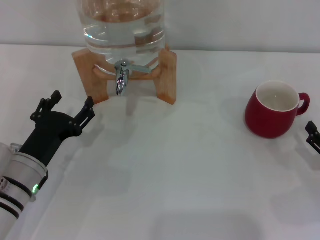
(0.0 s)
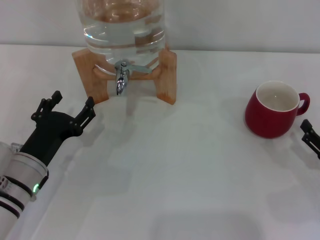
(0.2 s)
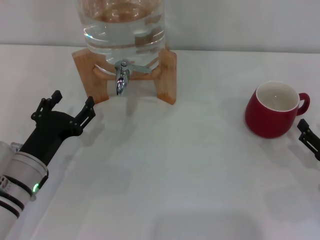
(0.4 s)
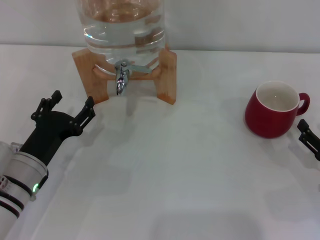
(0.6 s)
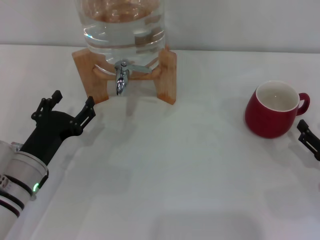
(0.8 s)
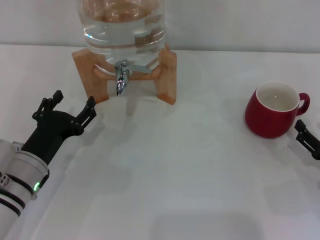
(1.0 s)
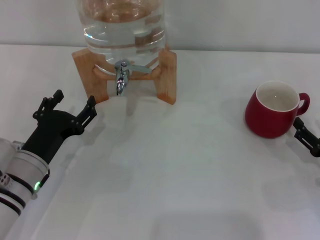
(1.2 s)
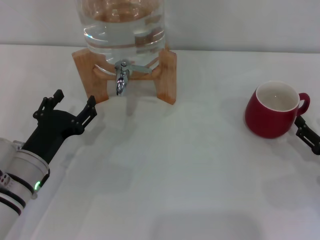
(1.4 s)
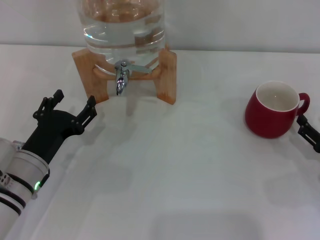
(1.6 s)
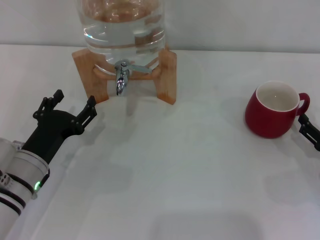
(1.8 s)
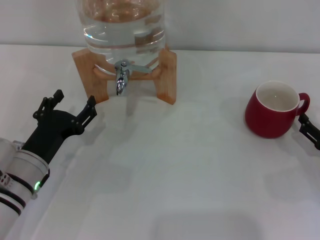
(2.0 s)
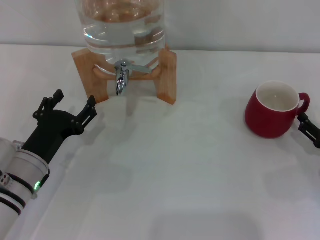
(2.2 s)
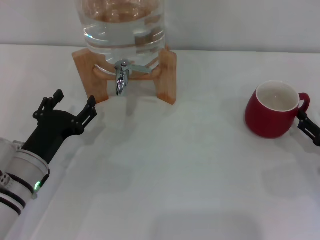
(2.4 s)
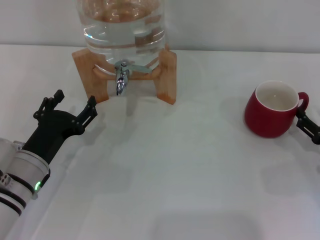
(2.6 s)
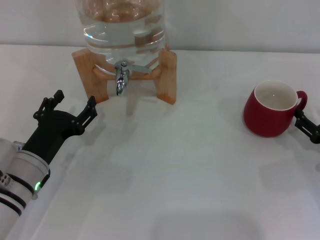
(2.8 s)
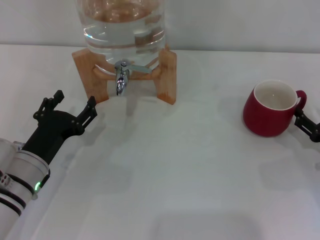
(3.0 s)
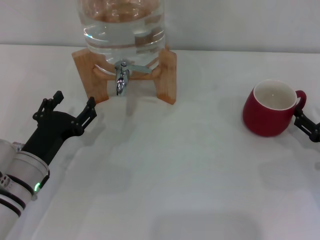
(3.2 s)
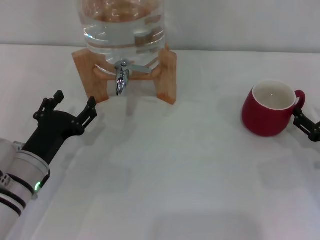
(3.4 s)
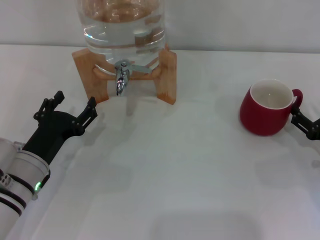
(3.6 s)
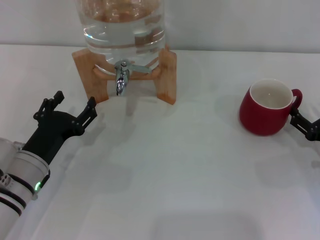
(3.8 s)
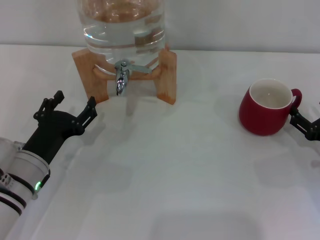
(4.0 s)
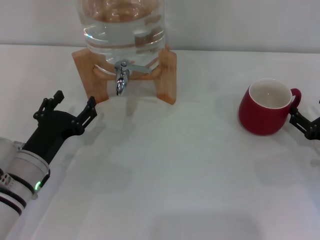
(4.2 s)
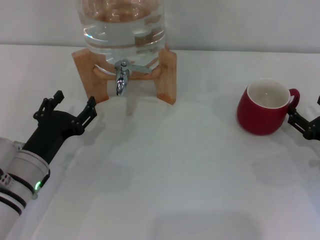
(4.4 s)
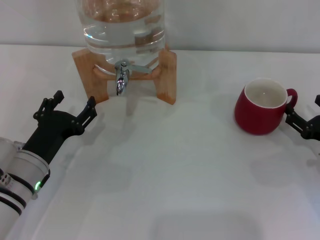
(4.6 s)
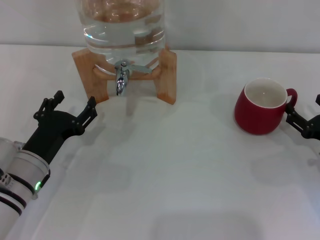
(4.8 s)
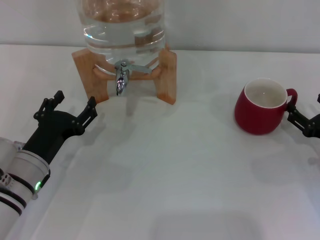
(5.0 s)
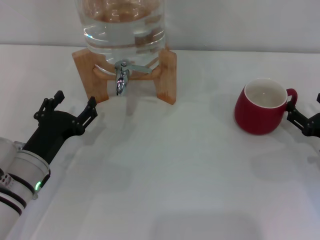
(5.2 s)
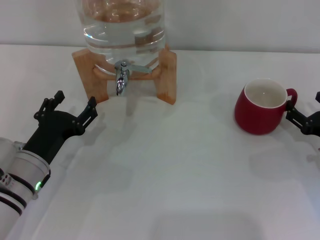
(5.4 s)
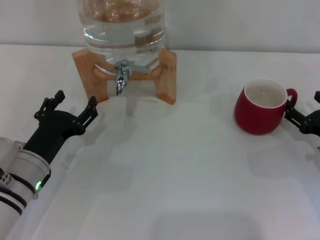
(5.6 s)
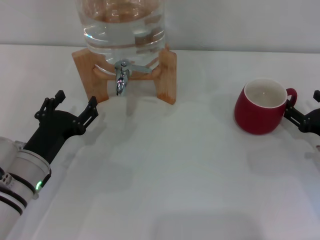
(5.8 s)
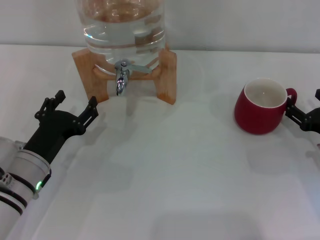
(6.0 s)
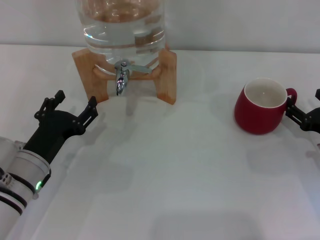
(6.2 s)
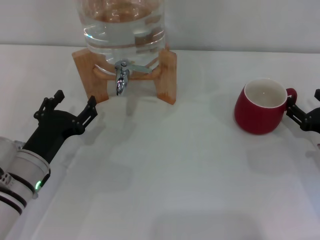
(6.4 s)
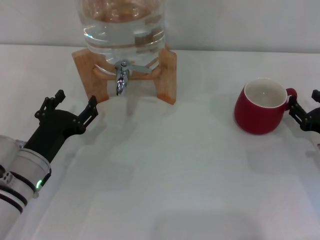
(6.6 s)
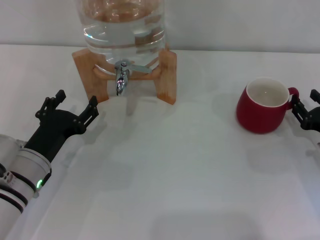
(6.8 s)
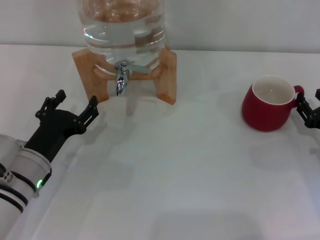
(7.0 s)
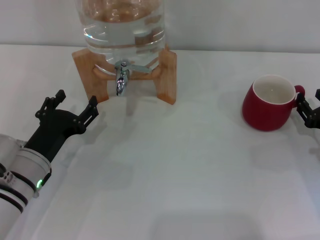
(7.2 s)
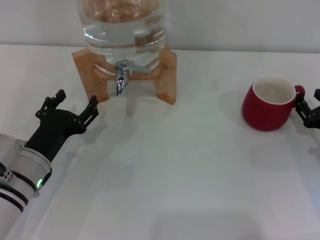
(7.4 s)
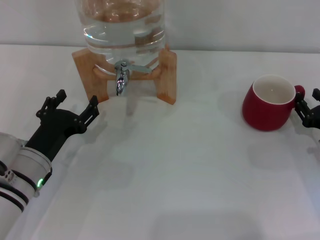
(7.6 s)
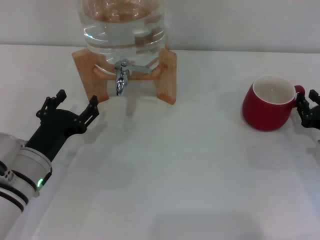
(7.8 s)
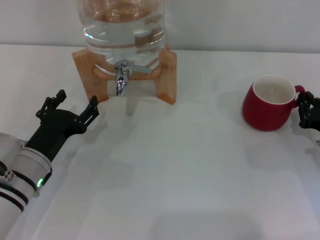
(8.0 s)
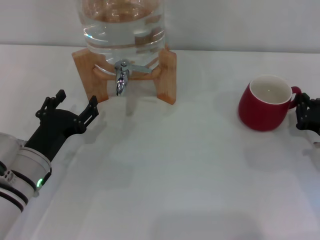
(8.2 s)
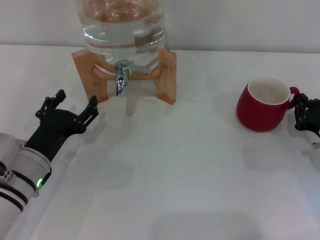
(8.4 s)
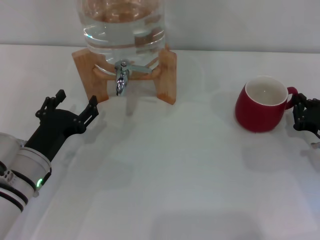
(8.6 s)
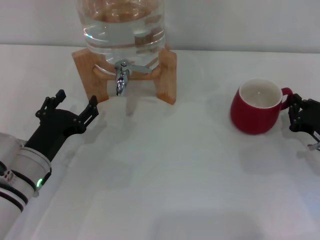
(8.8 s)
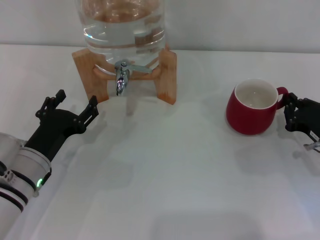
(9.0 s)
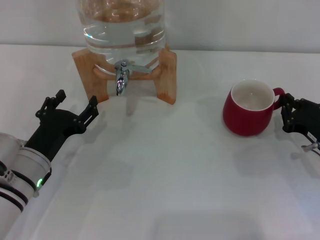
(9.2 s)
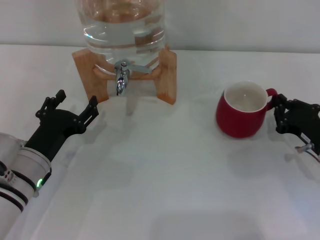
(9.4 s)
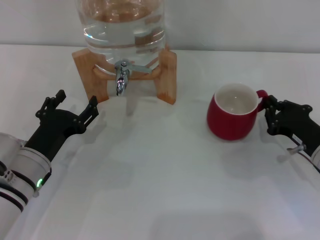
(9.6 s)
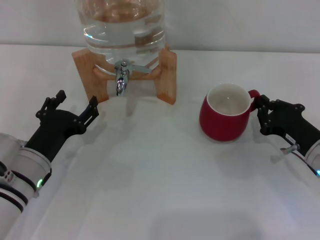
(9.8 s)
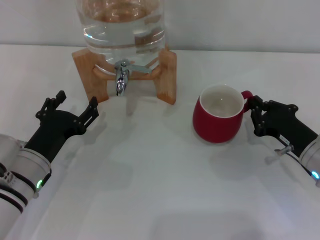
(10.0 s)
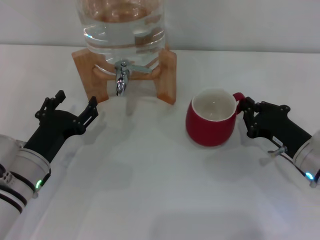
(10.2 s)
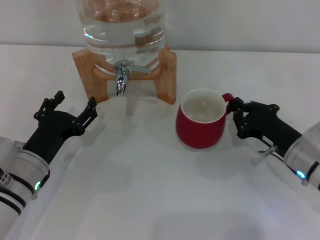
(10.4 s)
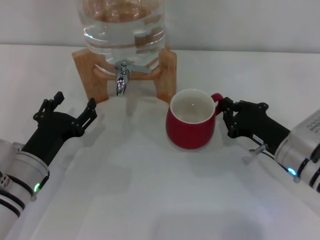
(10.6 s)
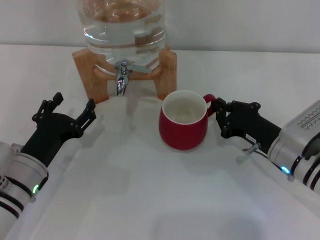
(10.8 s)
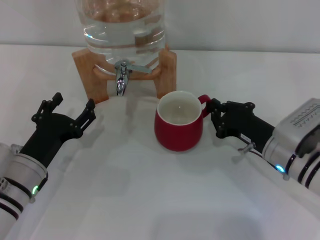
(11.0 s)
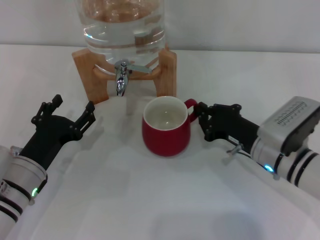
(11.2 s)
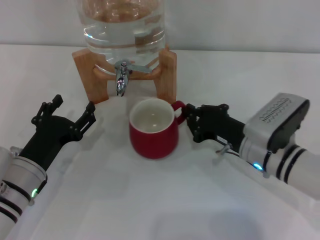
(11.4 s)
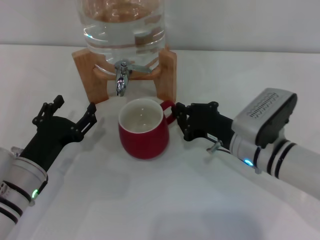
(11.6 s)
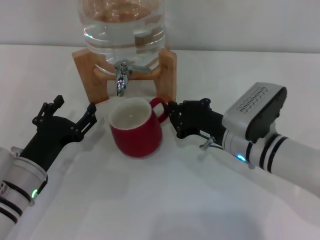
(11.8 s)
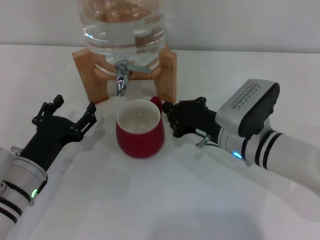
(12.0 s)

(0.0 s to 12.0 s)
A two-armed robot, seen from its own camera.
Task of the whole recording: the right gripper pick up the red cup and place it horizontally under the faucet, the left gripper turn on the faucet to fill the cup, and then turn off the faucet.
0.0 s - 3.0 s: There are only small adjustments of the grippers.
3.0 s - 4.4 s: Both grippers stay put.
4.4 s - 6.0 s: There are only small adjustments of the grippers.
6.0 s - 7.6 s: The right gripper closes up.
7.6 s - 9.0 s: The right gripper closes its fingers.
9.0 s - 10.4 s: The right gripper travels to the left by approximately 5 cm.
10.4 s - 12.0 s: The right gripper moves to the left, approximately 10 cm.

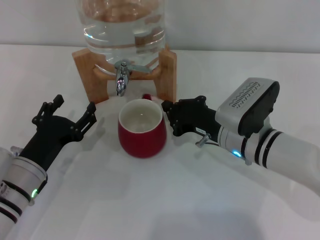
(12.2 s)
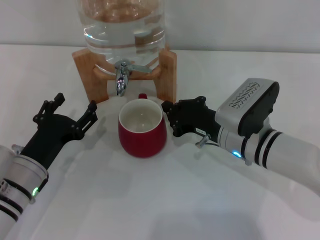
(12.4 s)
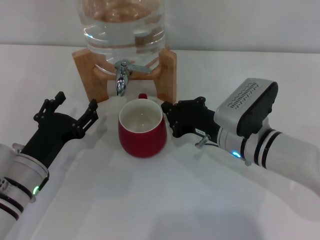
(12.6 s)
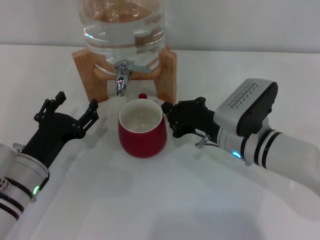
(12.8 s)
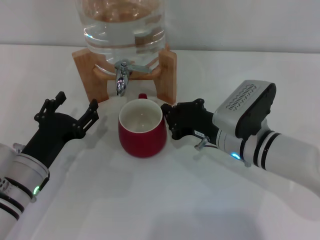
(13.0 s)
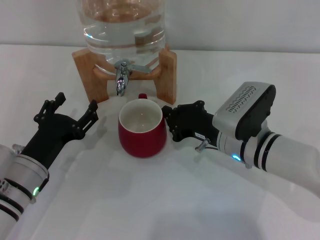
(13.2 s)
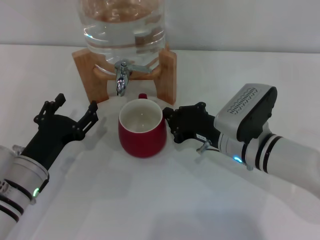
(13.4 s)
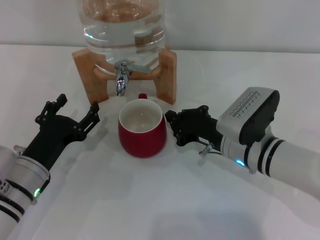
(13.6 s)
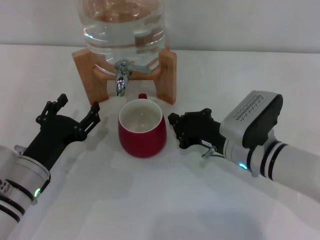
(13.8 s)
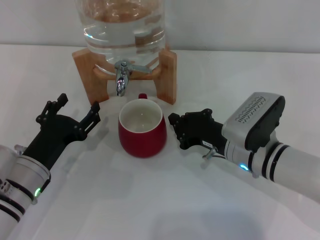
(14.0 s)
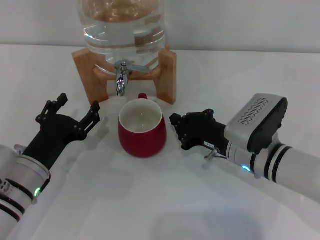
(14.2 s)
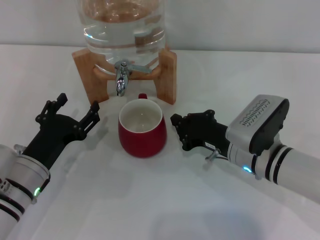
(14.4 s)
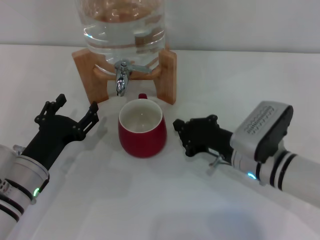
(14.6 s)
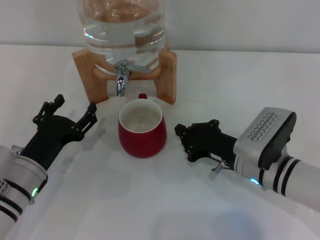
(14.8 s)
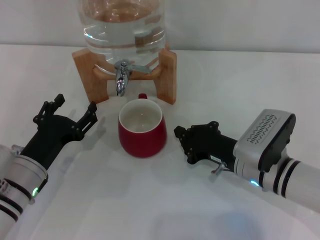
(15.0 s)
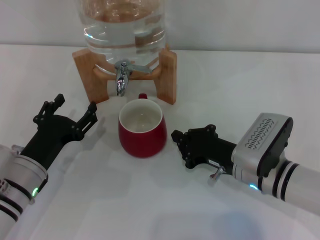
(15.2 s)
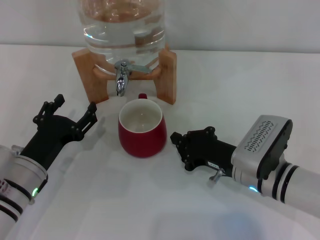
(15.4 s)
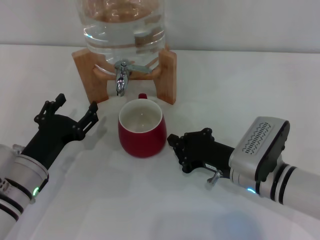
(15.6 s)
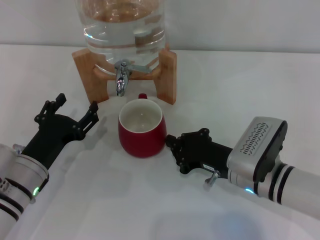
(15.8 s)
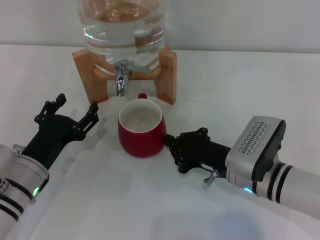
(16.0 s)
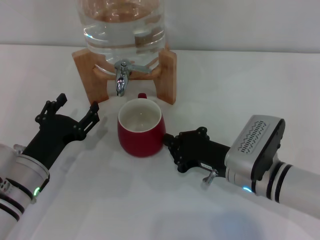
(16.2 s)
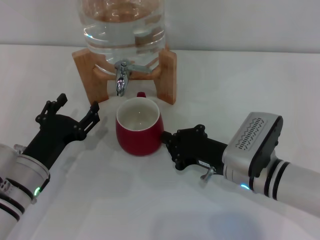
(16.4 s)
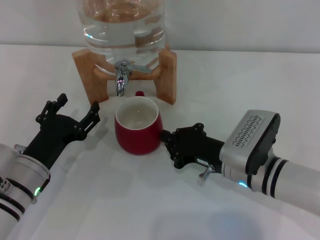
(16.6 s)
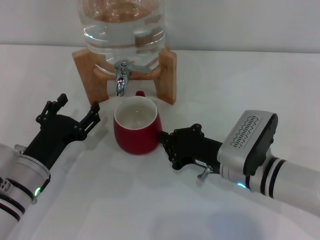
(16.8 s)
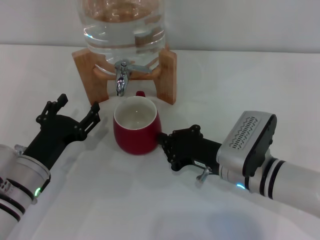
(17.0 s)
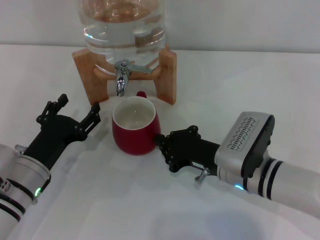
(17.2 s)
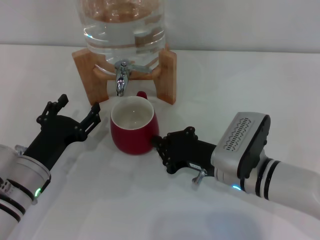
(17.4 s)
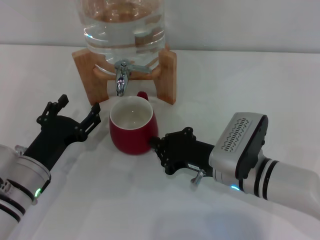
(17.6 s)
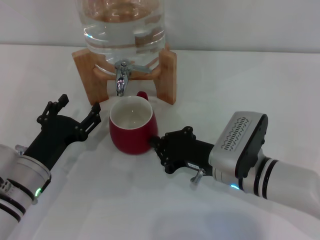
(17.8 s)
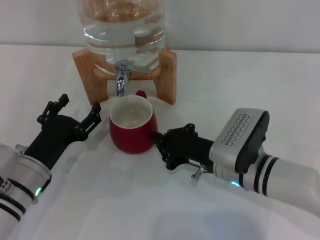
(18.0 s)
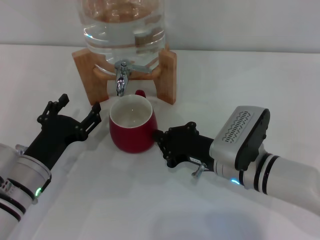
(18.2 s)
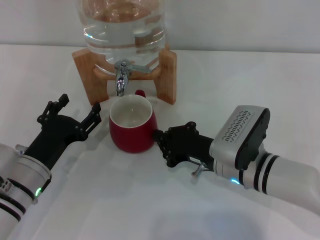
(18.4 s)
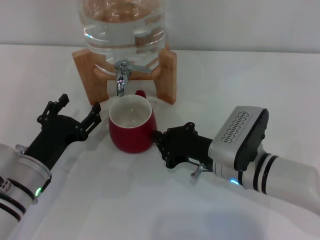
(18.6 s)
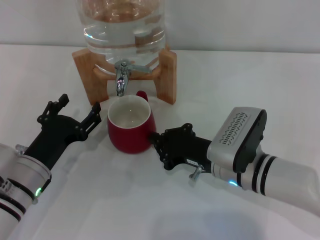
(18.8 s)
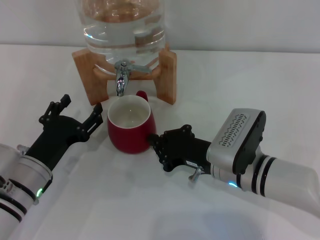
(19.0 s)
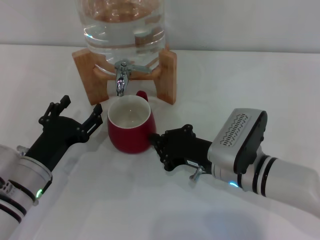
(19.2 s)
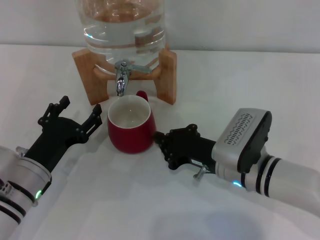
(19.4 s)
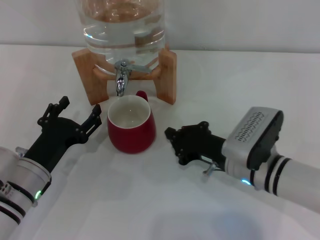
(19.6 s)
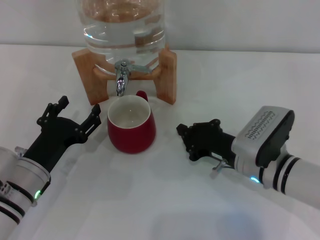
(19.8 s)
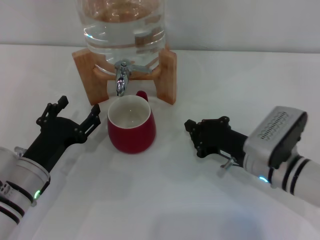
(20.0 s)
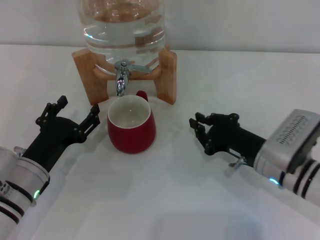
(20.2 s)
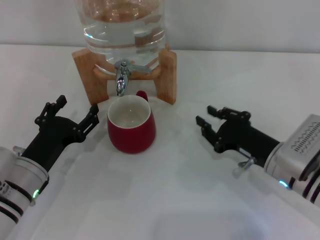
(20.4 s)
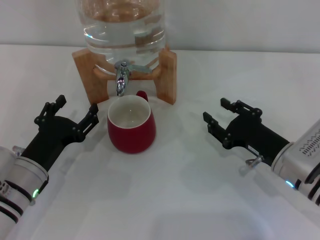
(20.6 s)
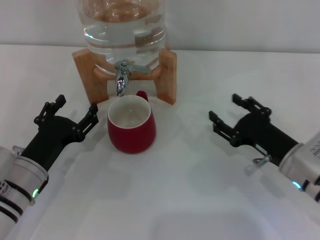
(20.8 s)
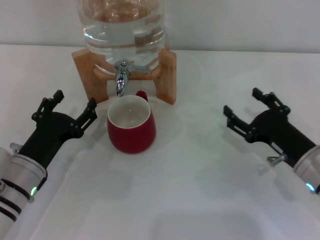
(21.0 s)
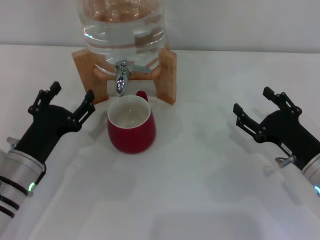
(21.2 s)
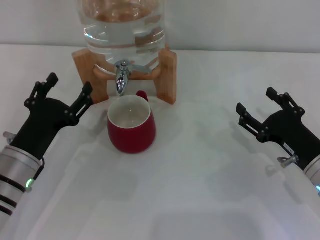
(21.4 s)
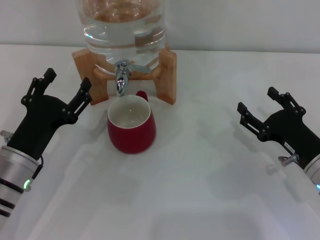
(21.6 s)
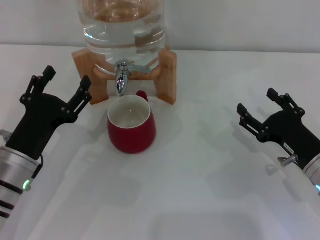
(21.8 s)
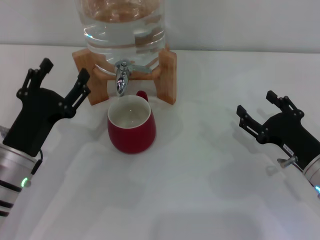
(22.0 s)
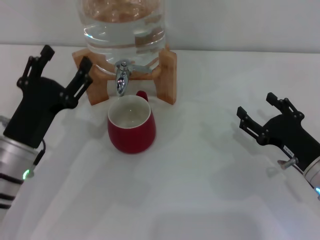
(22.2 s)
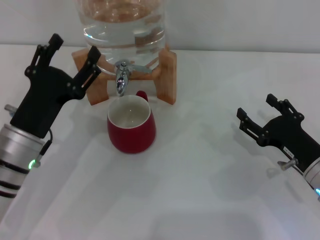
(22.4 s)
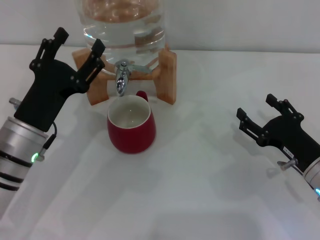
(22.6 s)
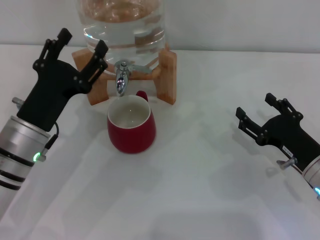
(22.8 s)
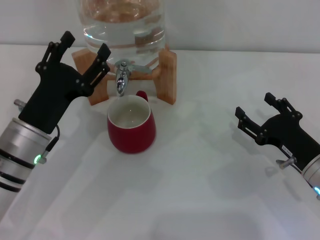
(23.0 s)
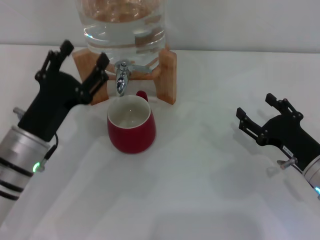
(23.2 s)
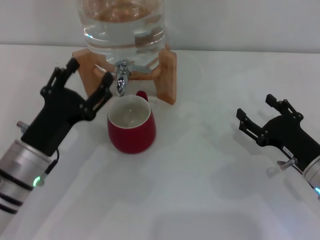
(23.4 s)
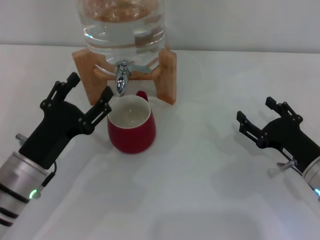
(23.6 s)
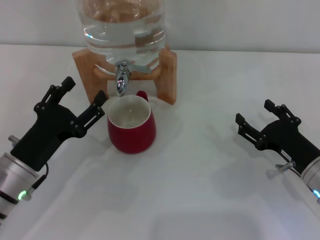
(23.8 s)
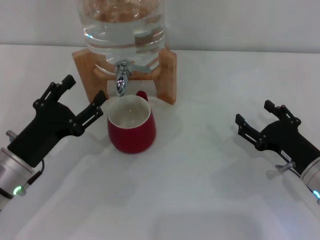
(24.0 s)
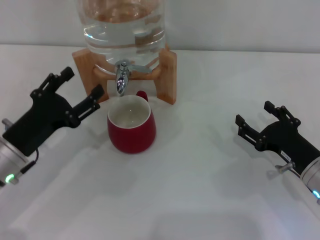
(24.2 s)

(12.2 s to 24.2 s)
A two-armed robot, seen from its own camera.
Task of the whole recording: the right gripper pick up the red cup and place it horizontally under the faucet, the left gripper turn on the faucet to fill the cup, and then turn off the faucet.
Step, 12.2 s - 19.8 s: Move the cup beneath the water dispenser nozzle with the right gripper.
12.2 s - 19.8 s: The grippers stay close to where they were, moving slightly.
19.8 s - 21.2 s: The right gripper is displaced to the right by some 10 cm, and opens its fingers.
21.2 s - 22.6 s: The left gripper shifts by approximately 5 cm.
22.6 s - 24.2 s: The grippers move only a little.
